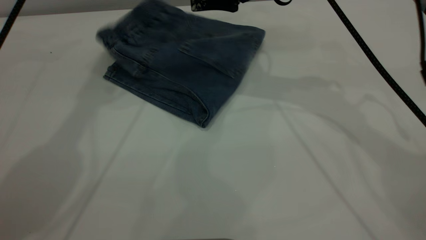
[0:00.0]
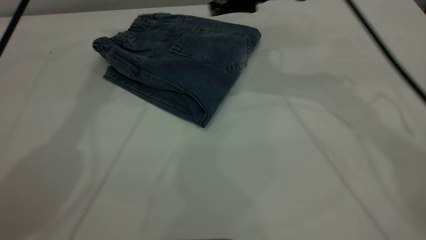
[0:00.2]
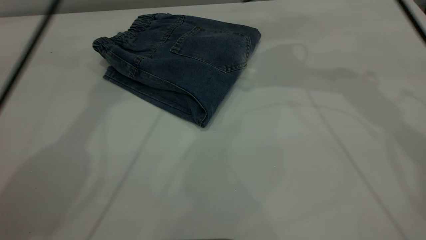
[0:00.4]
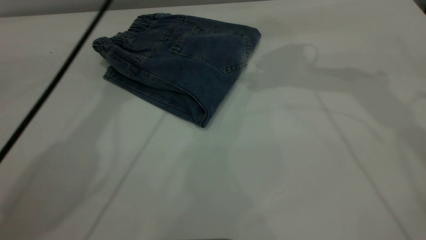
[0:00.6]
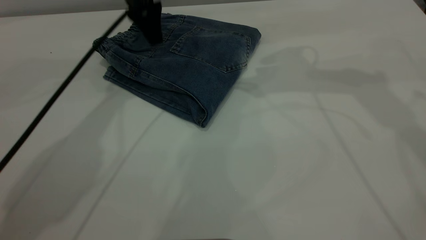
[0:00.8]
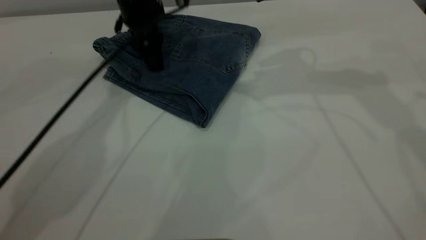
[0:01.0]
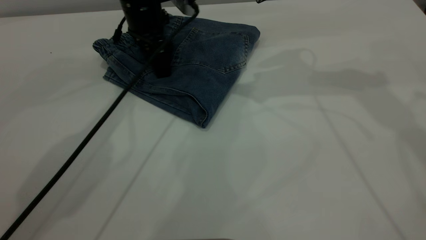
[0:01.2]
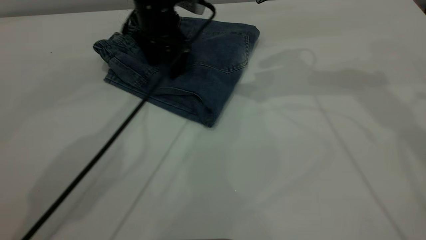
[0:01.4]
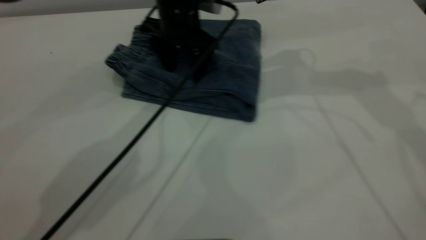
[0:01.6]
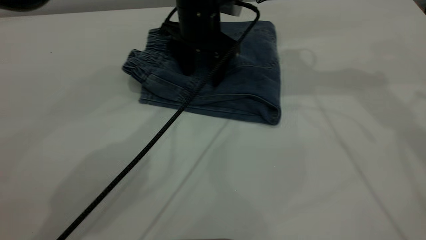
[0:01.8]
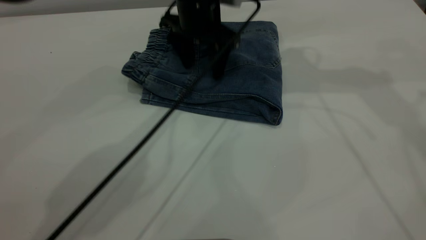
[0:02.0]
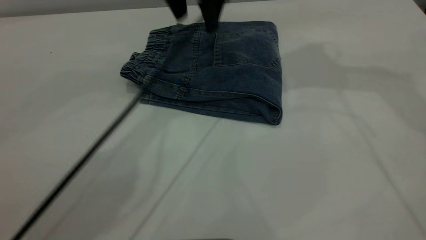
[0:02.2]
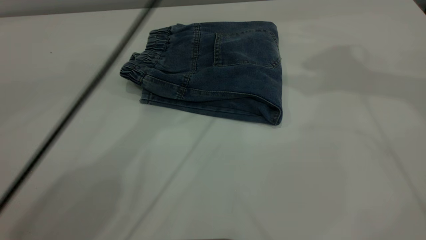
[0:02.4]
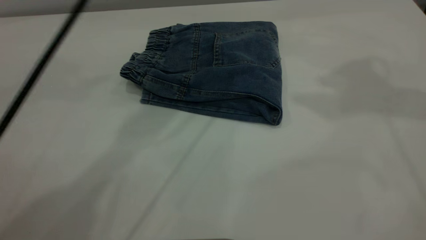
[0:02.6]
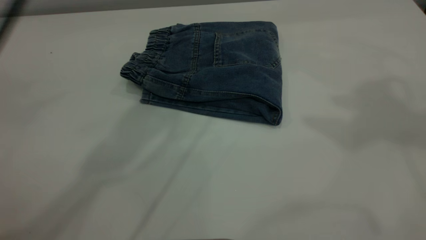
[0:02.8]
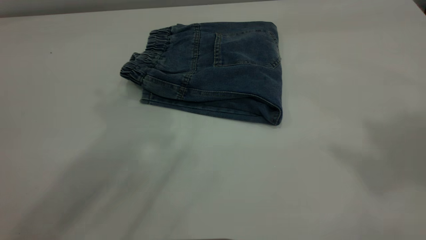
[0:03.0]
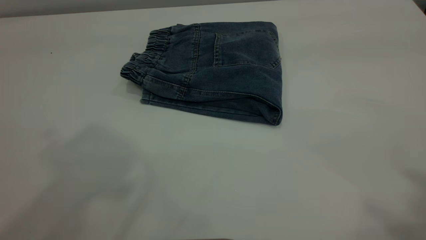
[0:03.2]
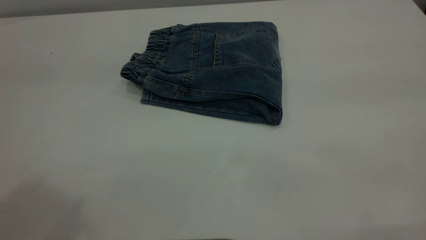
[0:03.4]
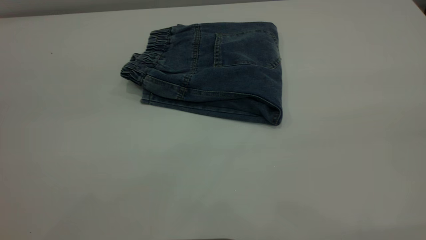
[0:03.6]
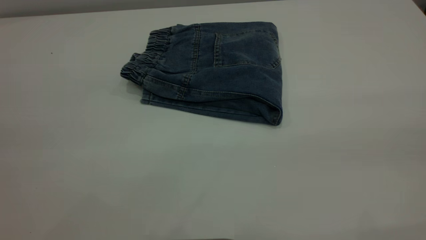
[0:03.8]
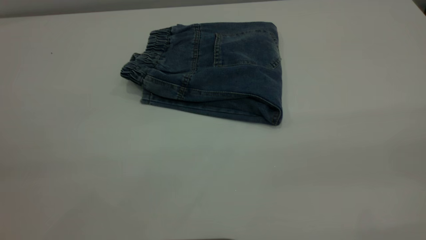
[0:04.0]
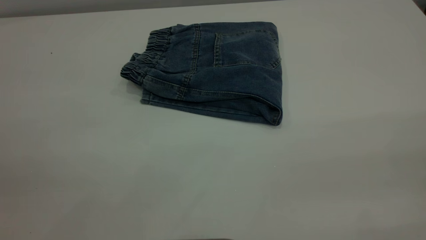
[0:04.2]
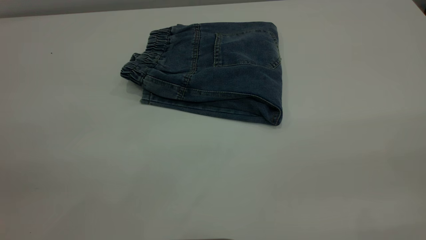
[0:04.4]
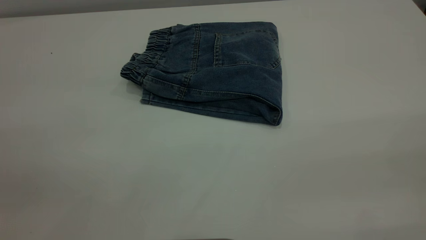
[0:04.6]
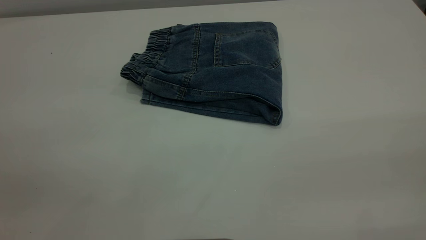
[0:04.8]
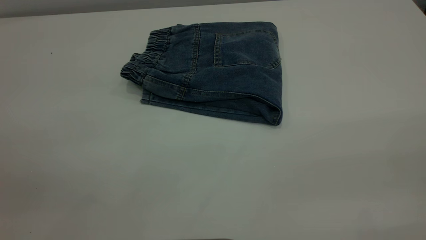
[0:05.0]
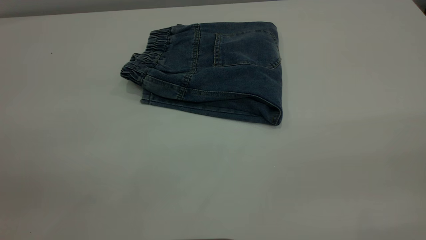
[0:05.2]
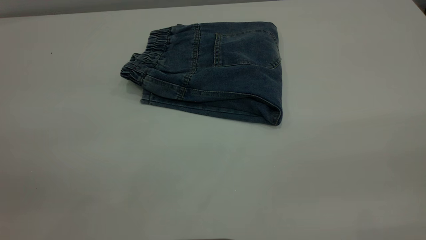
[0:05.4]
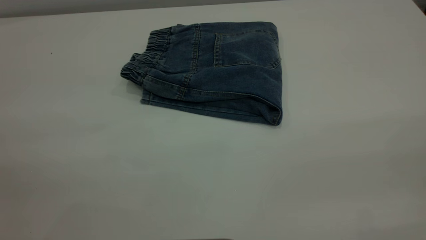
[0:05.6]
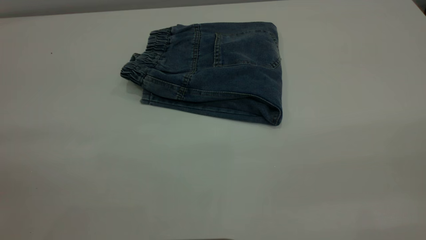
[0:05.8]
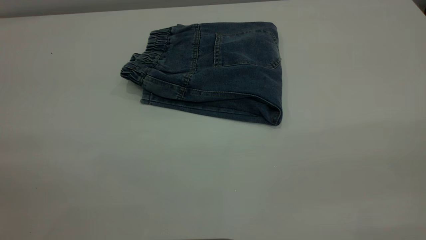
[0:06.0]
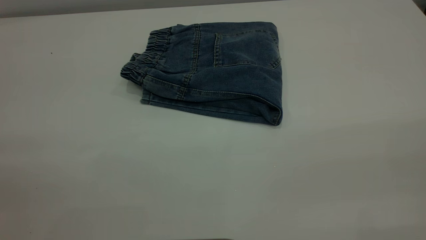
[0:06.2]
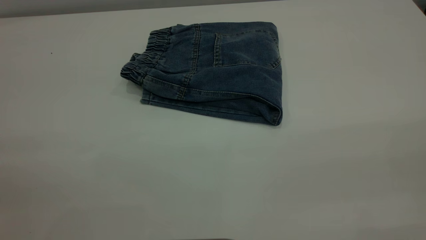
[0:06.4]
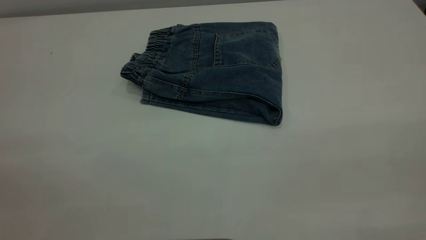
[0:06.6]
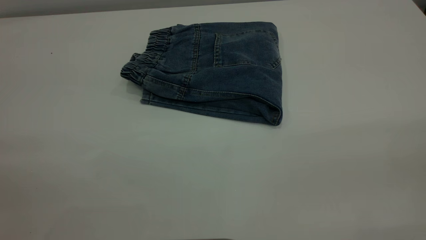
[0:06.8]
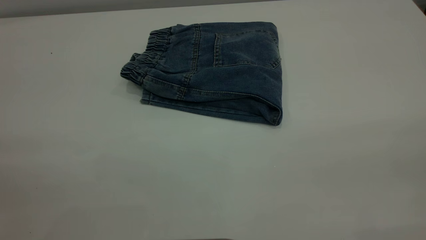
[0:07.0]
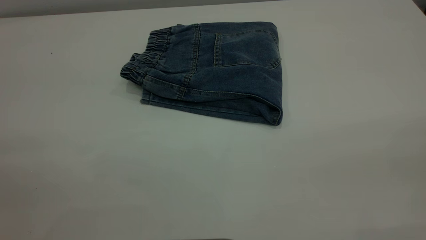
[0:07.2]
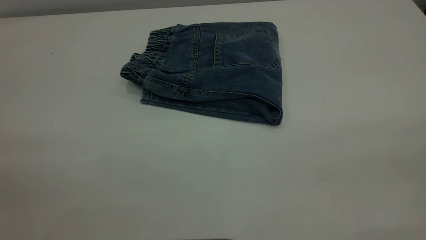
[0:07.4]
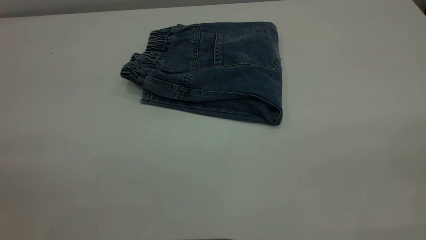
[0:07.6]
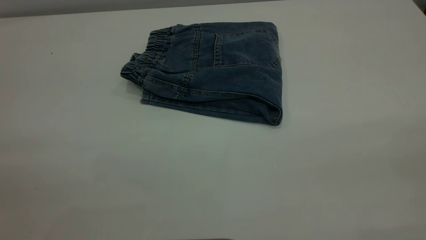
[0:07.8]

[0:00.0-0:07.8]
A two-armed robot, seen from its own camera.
0:00.0 to 0:01.6: The left gripper travels downward and to the right by roughly 25 cm. The right gripper is displaced to the right and upward by approximately 10 cm.
0:01.6 to 0:03.2: The right gripper goes some 40 cm backward and upward; the left gripper shifts roughly 50 cm upward and backward.
